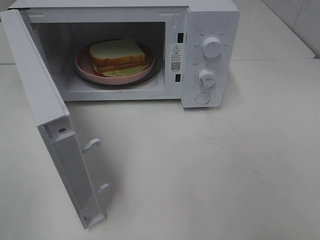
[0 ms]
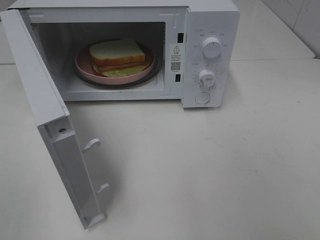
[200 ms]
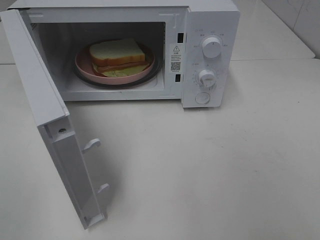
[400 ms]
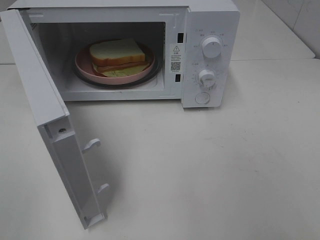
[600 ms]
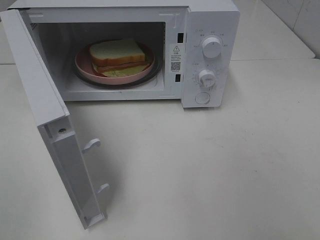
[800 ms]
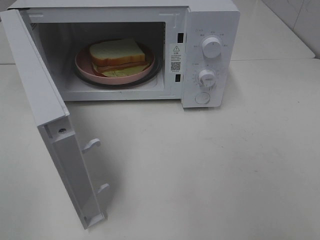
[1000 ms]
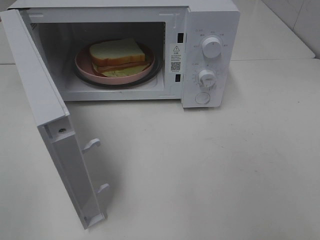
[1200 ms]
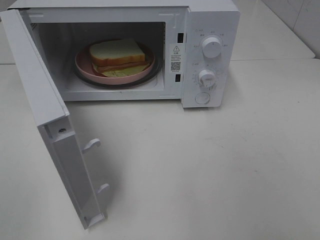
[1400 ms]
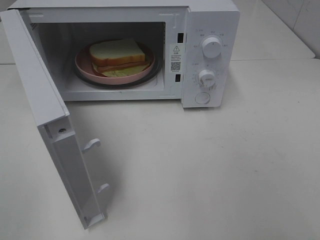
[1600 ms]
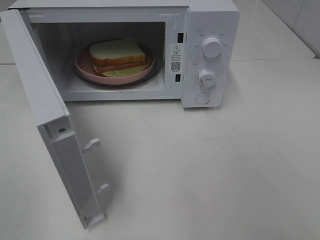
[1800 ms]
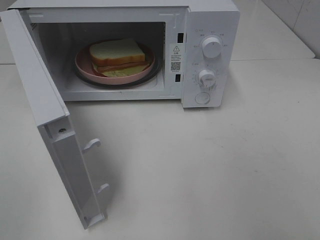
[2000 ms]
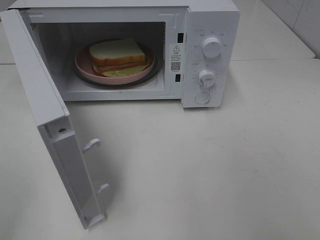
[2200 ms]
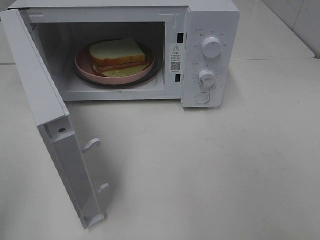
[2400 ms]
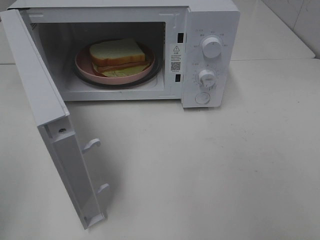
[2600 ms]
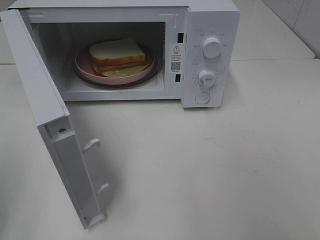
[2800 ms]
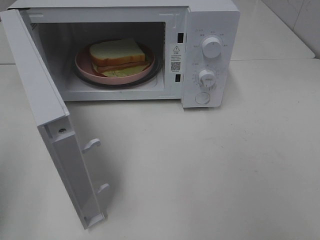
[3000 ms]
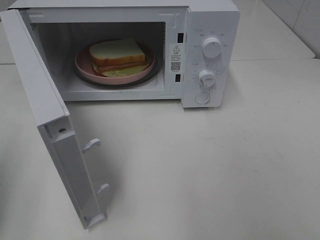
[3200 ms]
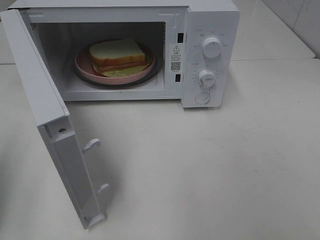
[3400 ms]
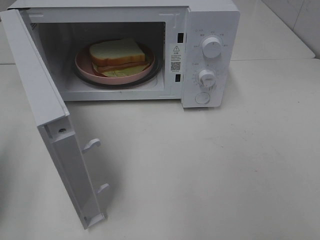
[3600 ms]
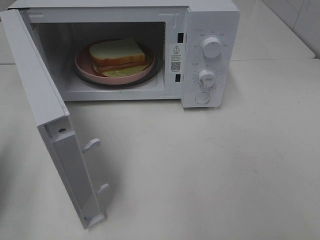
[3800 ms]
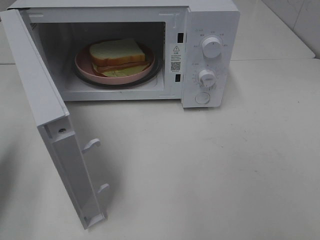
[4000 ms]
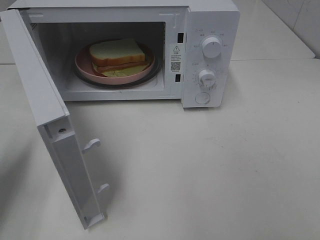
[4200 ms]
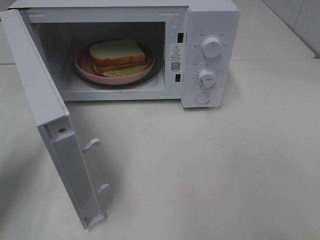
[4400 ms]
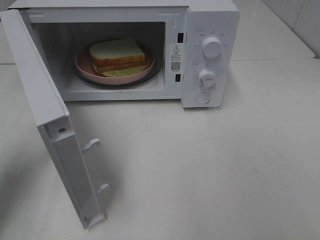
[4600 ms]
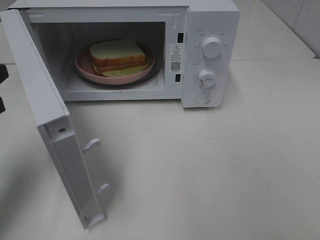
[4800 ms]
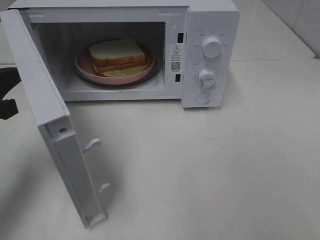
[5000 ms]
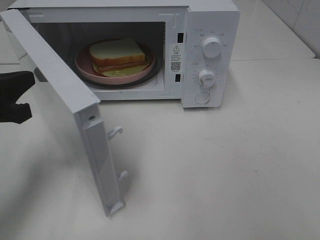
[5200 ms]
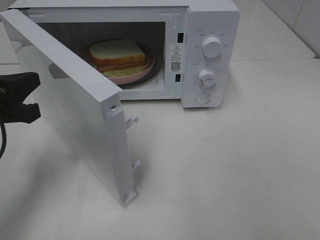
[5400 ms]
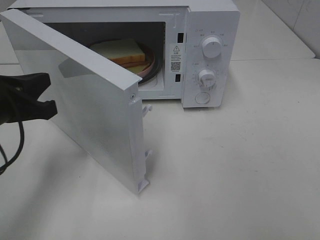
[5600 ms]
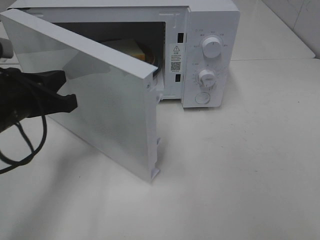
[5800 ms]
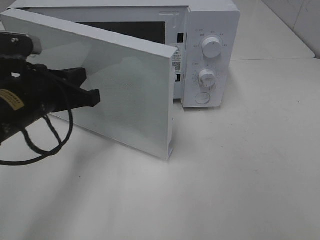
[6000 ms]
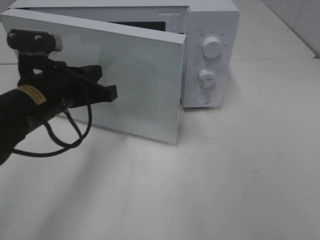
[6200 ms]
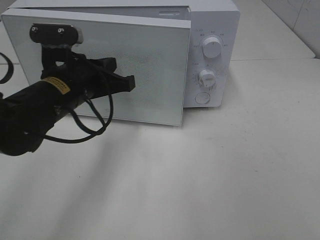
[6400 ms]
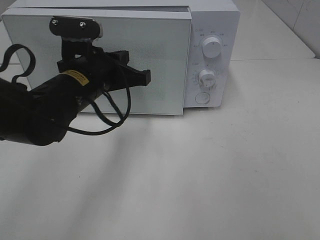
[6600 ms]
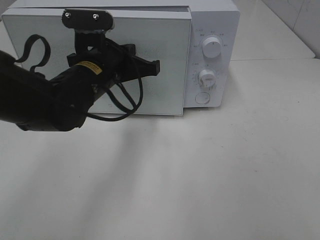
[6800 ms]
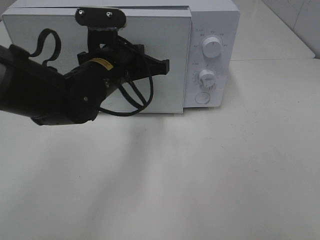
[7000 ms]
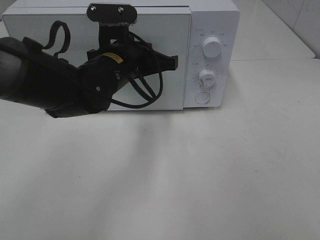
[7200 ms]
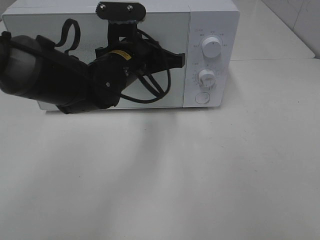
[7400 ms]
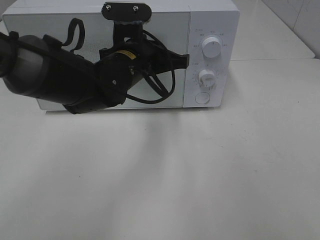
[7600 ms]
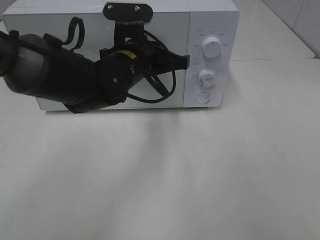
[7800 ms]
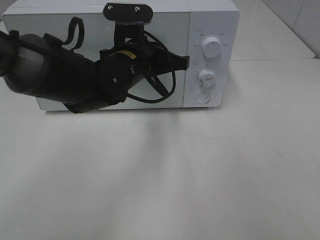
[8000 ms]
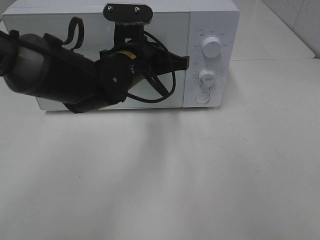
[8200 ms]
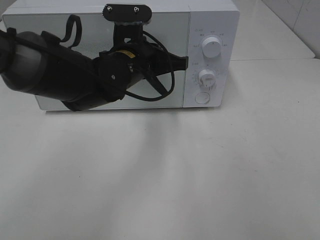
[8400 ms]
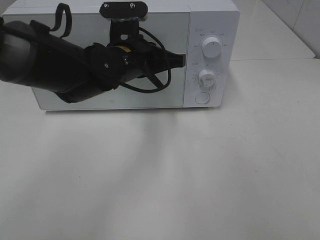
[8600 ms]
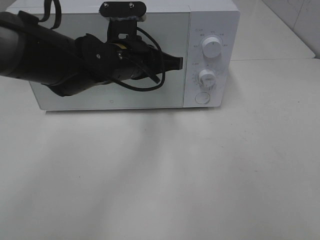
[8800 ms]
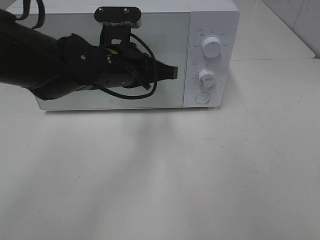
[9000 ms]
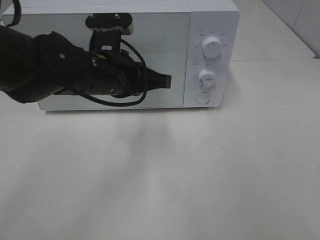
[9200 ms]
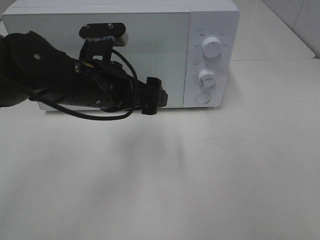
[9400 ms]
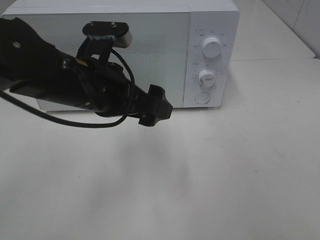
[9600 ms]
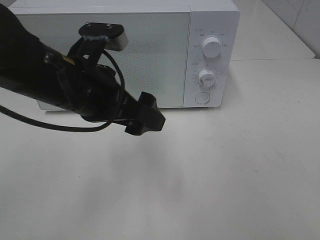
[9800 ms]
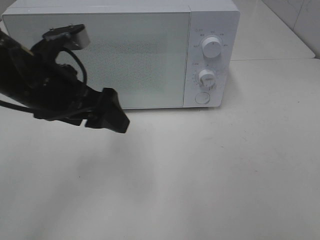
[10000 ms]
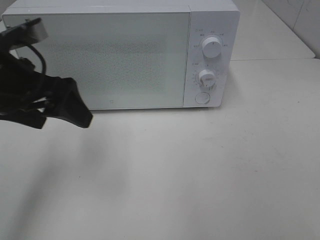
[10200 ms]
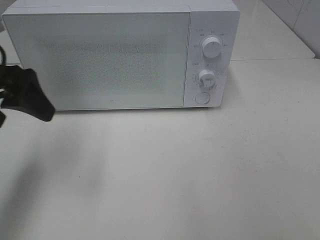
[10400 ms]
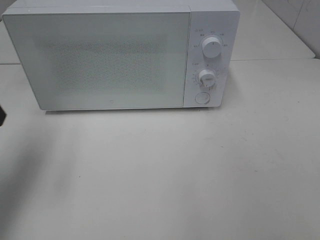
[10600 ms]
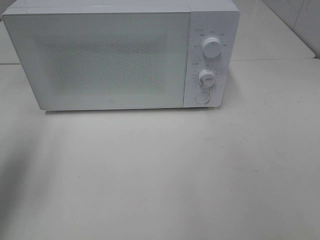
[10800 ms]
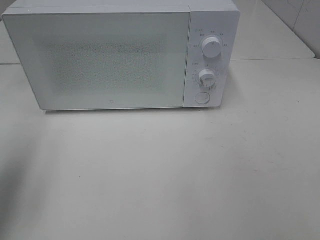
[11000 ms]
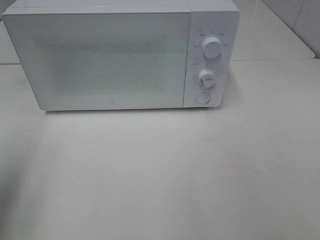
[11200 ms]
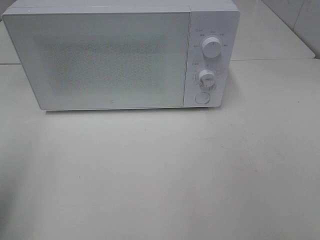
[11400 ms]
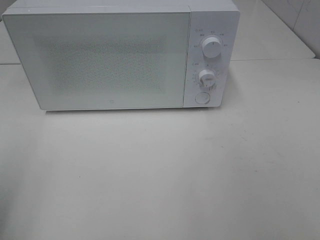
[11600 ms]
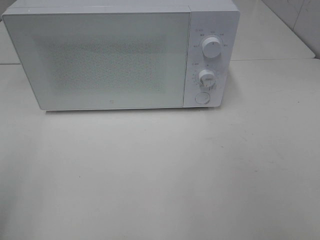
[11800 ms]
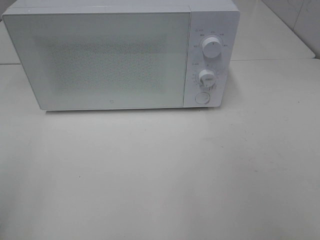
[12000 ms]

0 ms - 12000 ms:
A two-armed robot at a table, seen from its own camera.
Task of the whole recording: Heat Sandwich.
Step, 0 ms - 9000 ms: Left hand: close the microwave door.
0 ms - 1600 ms: Both grippers stay put.
3000 ms - 4400 ms: The left gripper is displaced forward and downward by some 15 cm.
4400 ms - 6000 ms: The left gripper shifts about 15 cm to the right.
6000 ms - 7600 ms: The left gripper shifts about 15 cm to the right and forward.
7600 ms - 9000 ms: The grippers stay close to where they were, moving slightly.
9000 ms - 10400 ms: The left gripper shifts roughly 20 cm to the left, and opens up.
10400 ms - 12000 ms: The left gripper is displaced backward by approximately 20 cm.

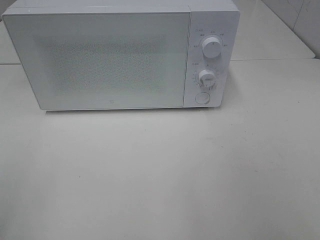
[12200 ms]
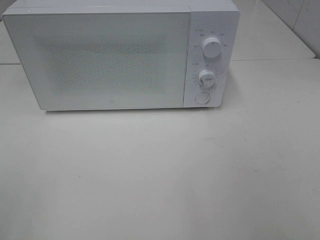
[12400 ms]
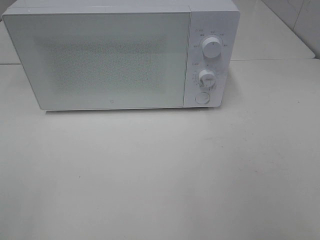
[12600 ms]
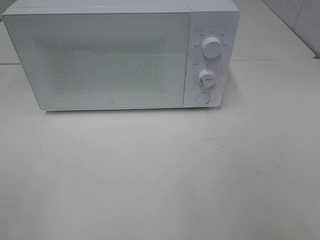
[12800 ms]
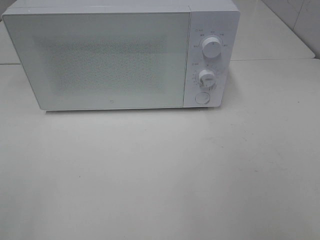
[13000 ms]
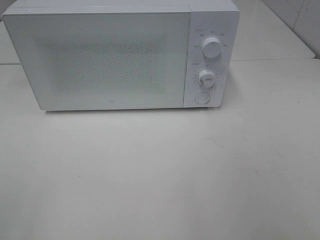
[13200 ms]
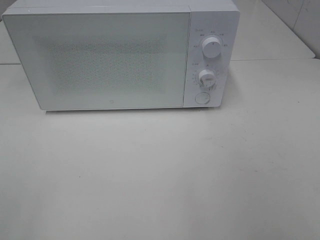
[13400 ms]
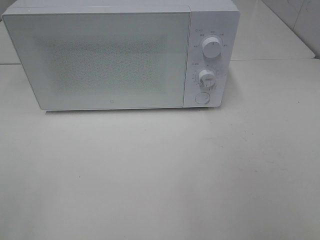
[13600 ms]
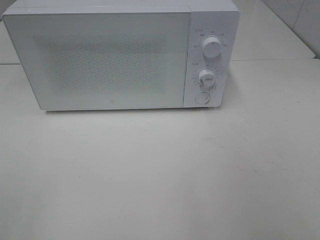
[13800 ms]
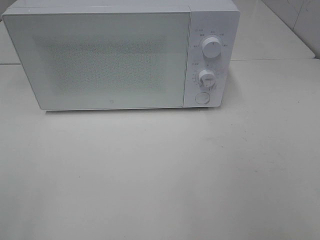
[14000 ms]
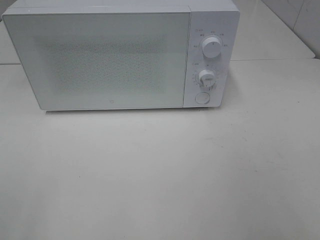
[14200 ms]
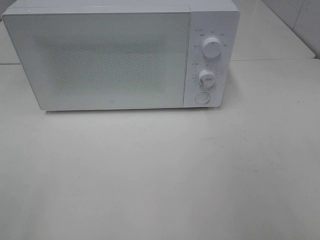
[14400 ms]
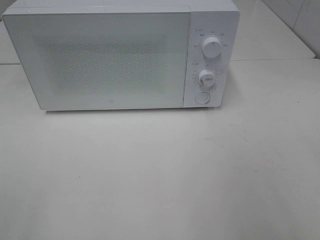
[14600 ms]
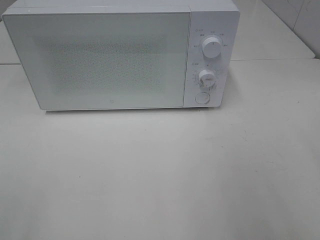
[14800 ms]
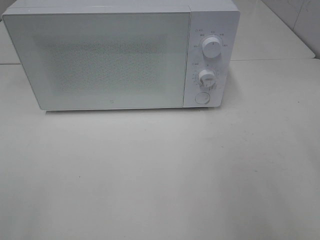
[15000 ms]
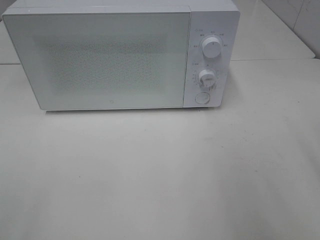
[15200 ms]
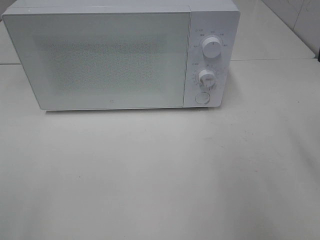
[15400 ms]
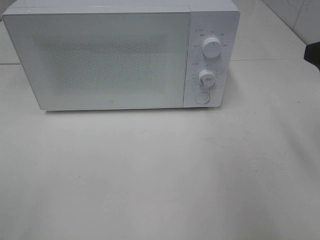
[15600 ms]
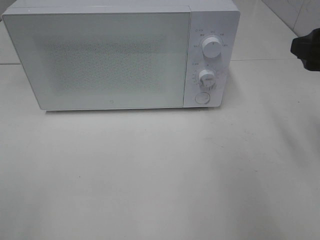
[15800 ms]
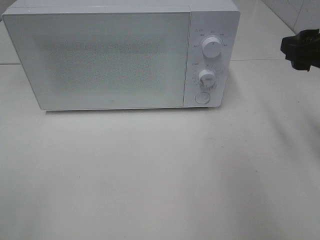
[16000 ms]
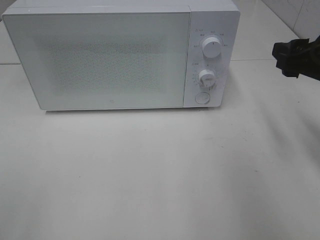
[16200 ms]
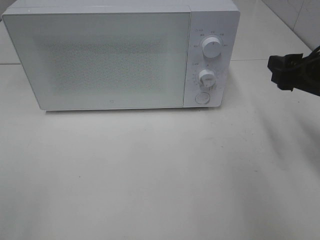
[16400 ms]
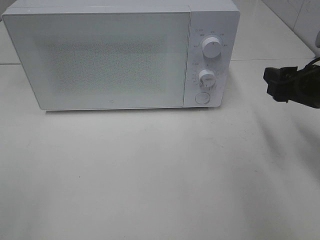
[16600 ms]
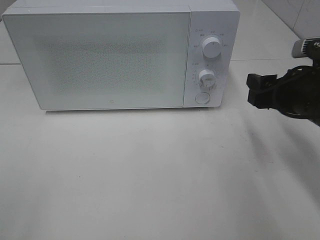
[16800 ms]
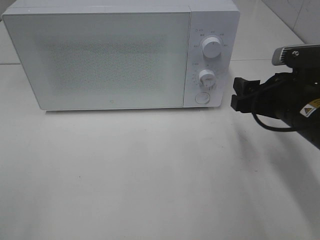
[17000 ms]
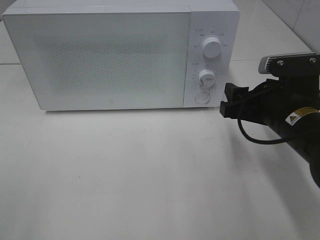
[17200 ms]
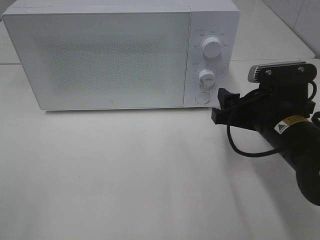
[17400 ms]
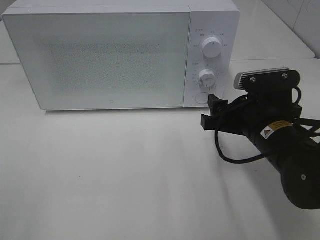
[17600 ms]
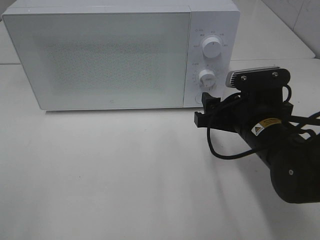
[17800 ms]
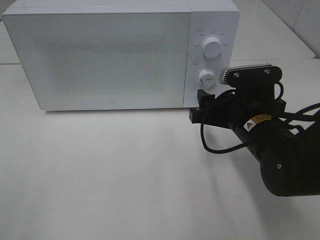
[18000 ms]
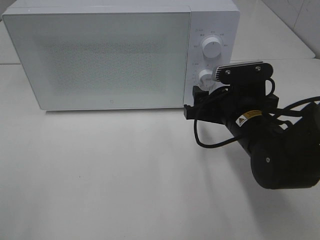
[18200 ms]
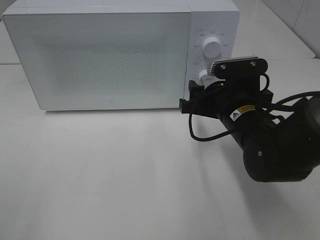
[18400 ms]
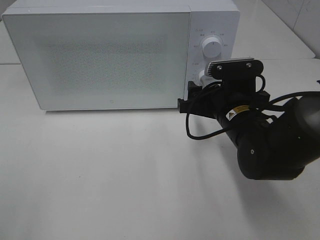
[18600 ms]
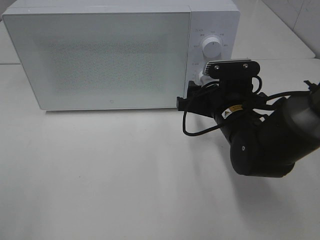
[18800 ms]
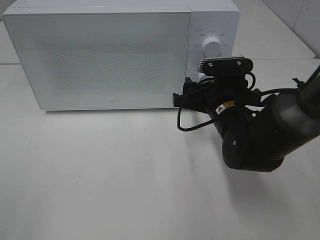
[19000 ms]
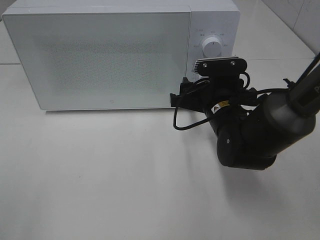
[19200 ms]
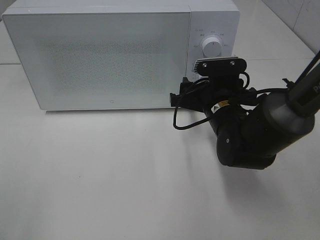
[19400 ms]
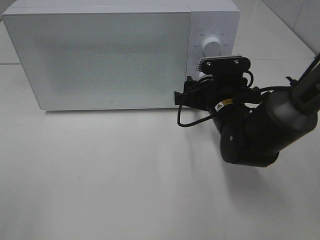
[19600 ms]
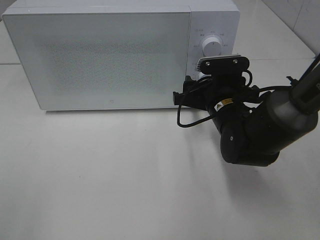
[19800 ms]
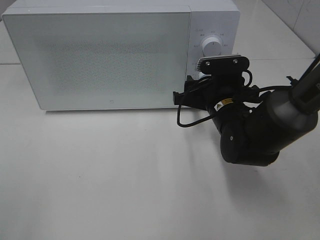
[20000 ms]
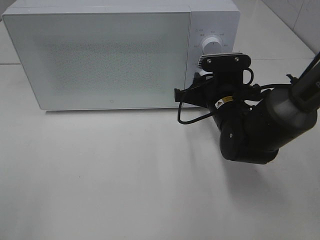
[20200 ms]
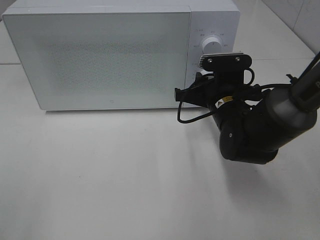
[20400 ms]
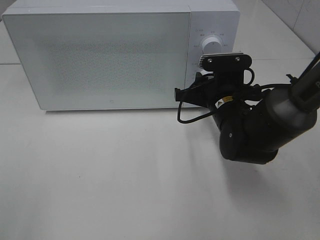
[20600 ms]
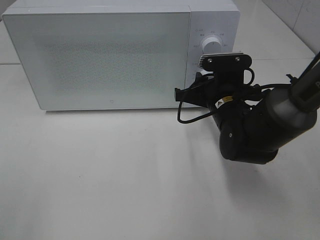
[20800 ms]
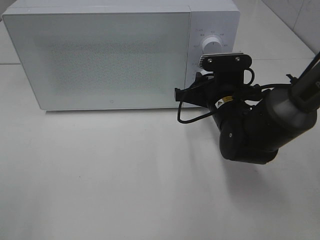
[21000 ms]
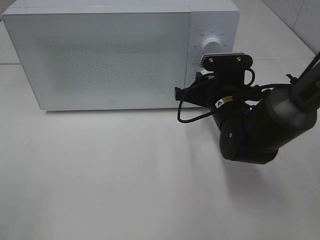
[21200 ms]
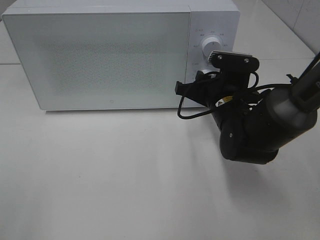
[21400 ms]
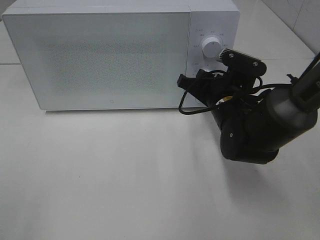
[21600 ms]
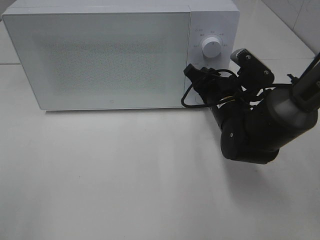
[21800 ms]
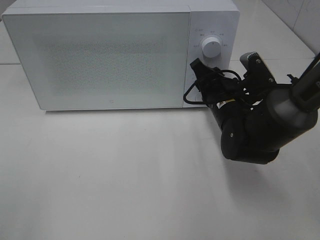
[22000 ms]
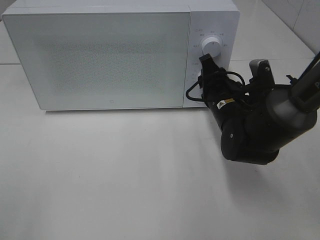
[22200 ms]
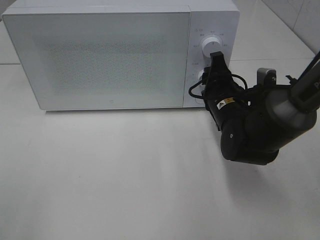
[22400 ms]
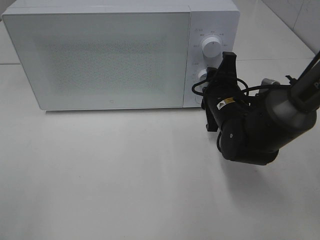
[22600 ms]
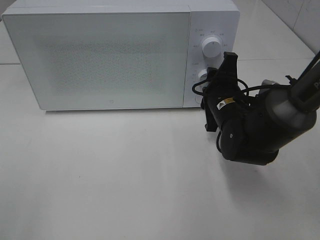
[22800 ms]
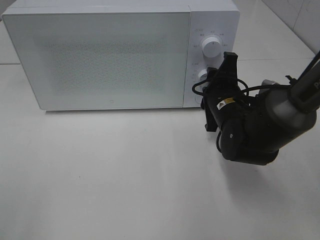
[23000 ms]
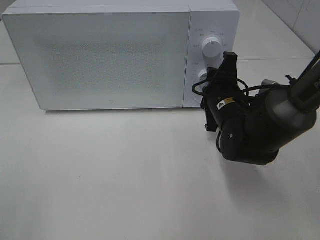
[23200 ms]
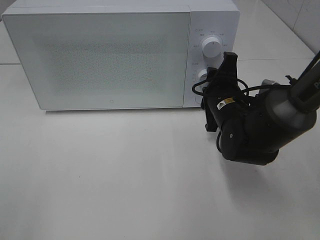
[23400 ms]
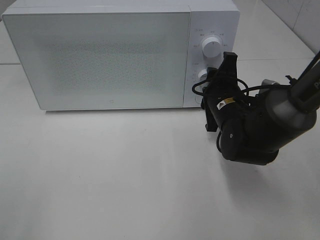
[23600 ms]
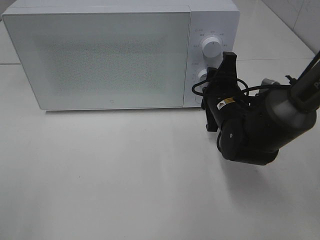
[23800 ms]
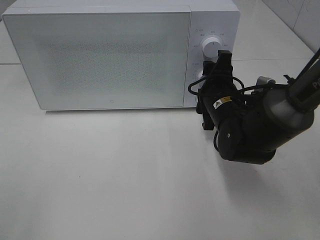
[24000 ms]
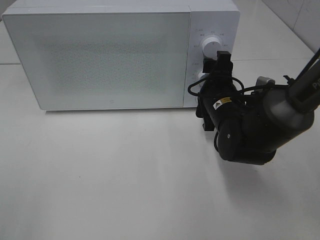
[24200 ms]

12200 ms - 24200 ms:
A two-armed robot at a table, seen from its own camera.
Task of the whole recording: Heat Sandwich.
15200 ms - 16600 ms: The right gripper shifts roughly 15 cm downward and forward.
16600 ms - 18200 ms: The right gripper shifts roughly 15 cm to the left and downward.
18200 ms - 19800 ms: The right gripper moves roughly 5 cm.
19800 ms - 21200 ms: The right gripper closes up.
22600 ms - 24200 ms: The right gripper opens.
